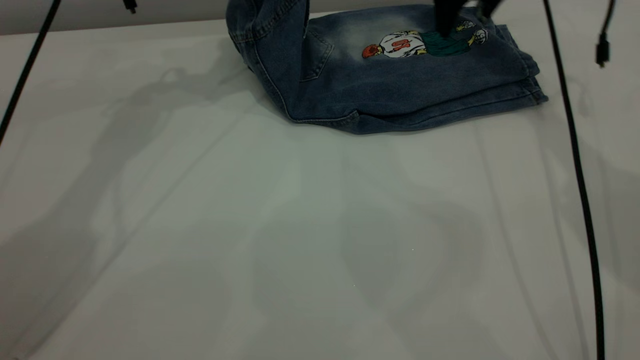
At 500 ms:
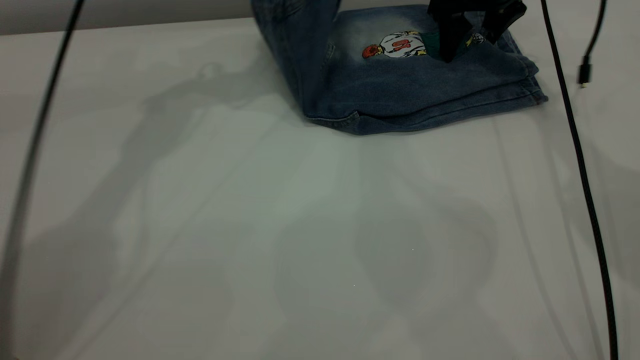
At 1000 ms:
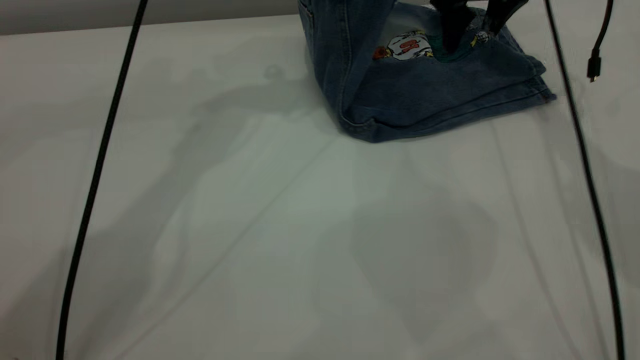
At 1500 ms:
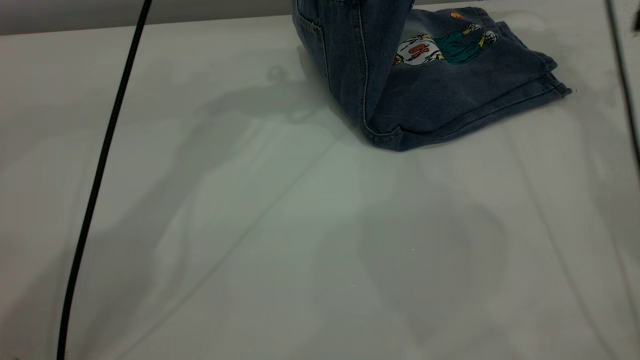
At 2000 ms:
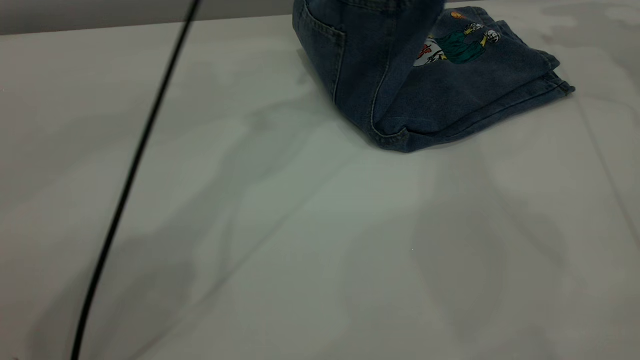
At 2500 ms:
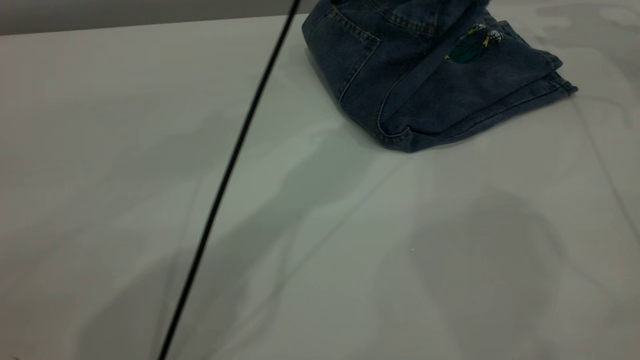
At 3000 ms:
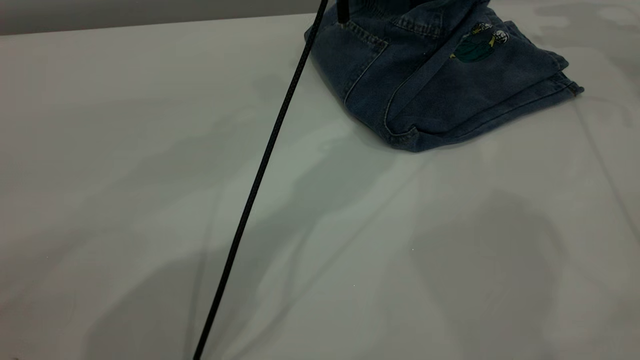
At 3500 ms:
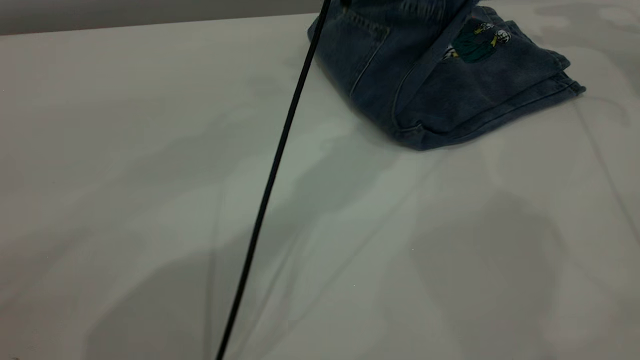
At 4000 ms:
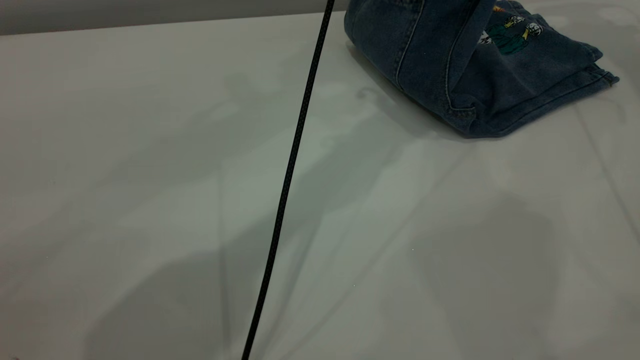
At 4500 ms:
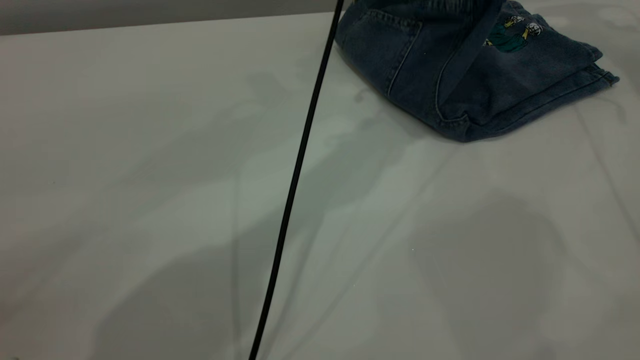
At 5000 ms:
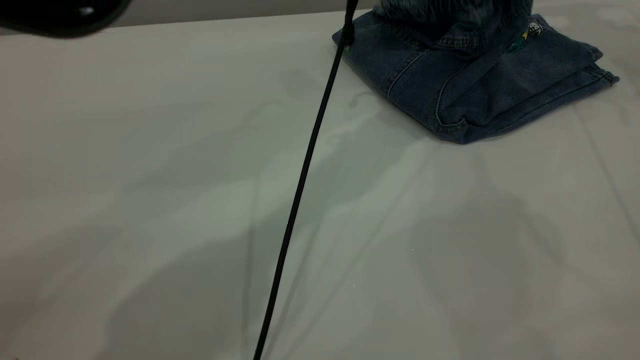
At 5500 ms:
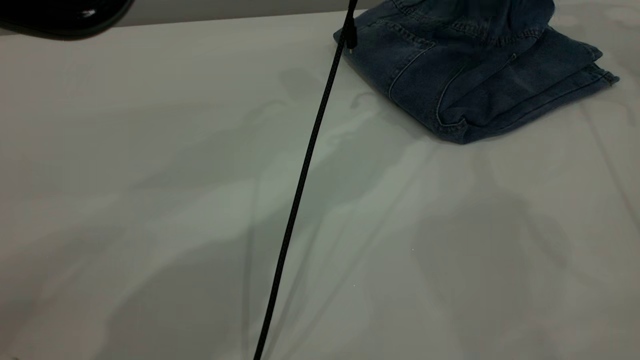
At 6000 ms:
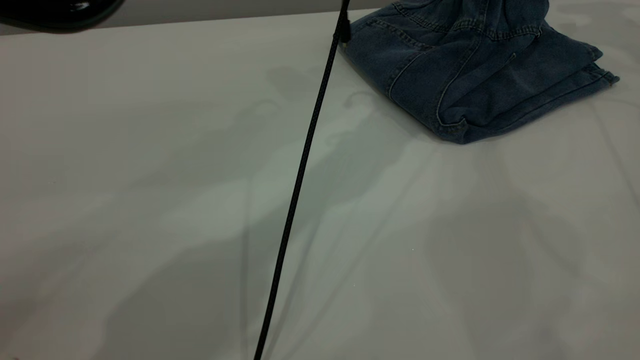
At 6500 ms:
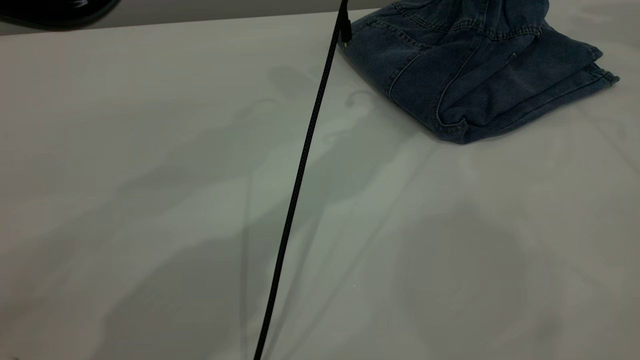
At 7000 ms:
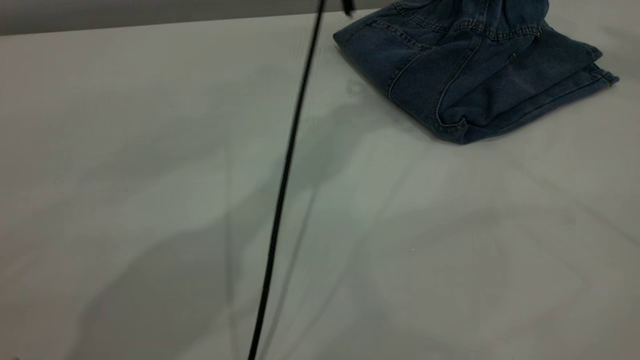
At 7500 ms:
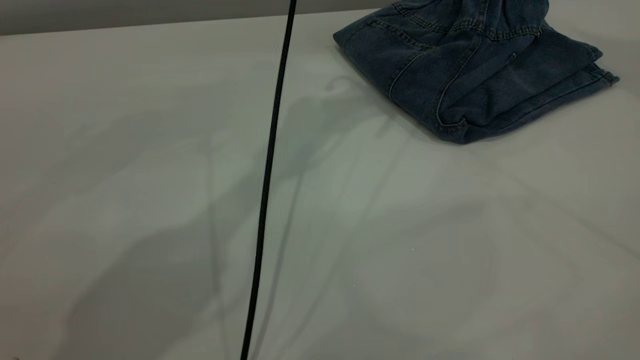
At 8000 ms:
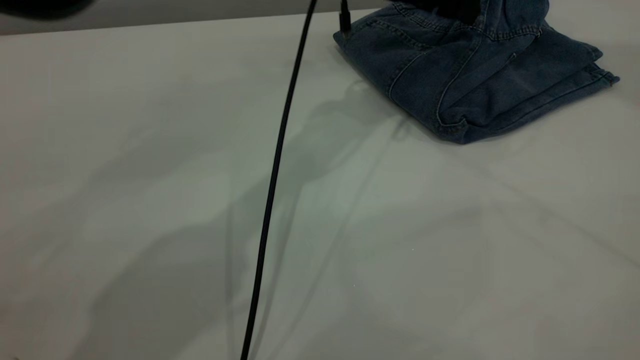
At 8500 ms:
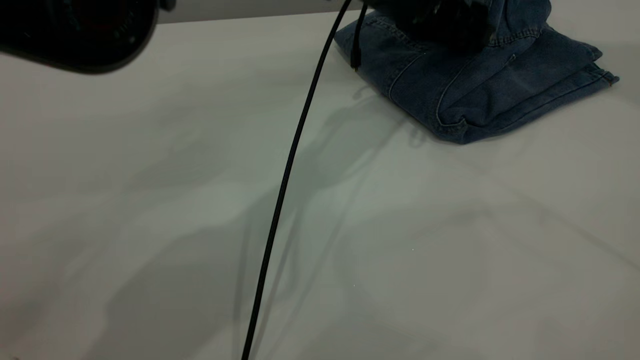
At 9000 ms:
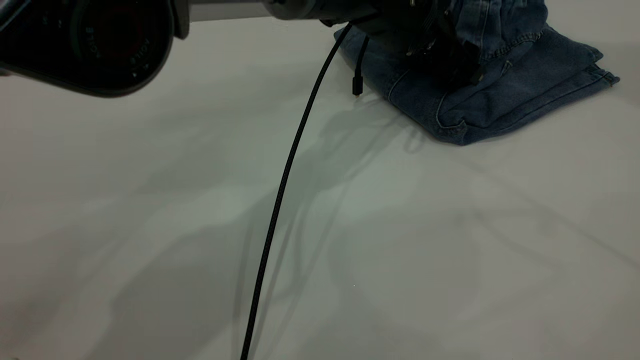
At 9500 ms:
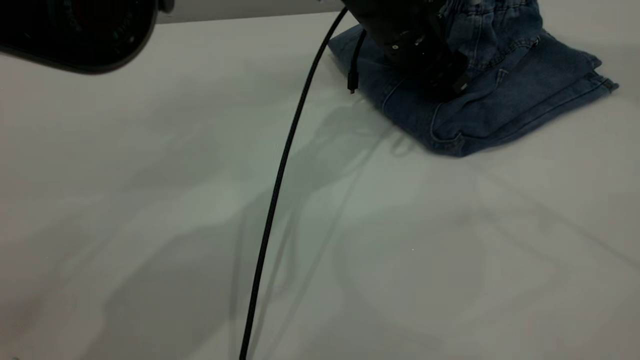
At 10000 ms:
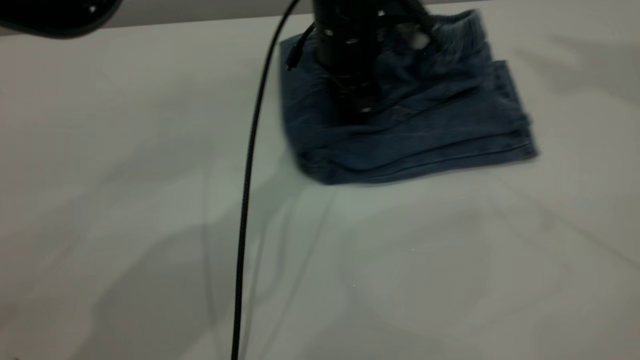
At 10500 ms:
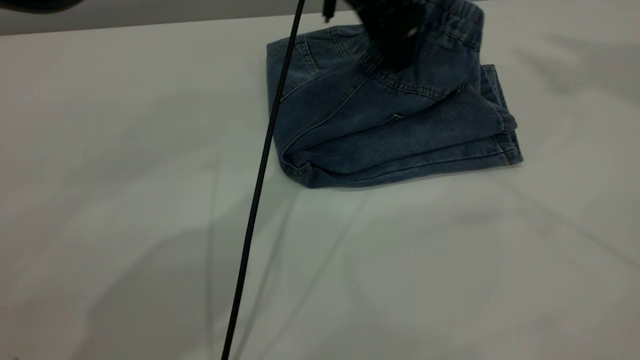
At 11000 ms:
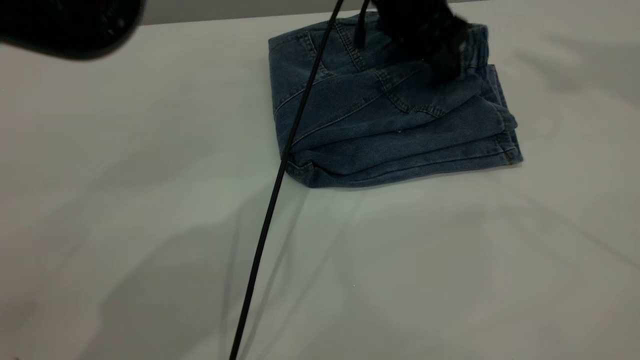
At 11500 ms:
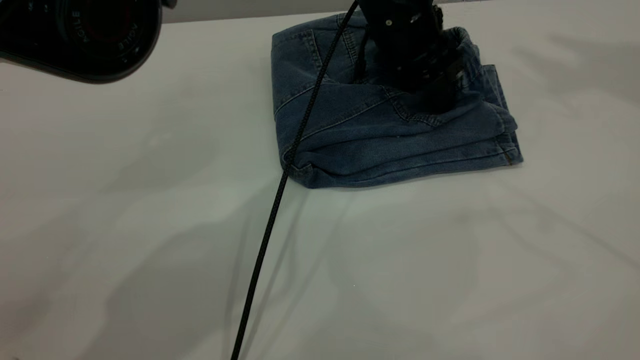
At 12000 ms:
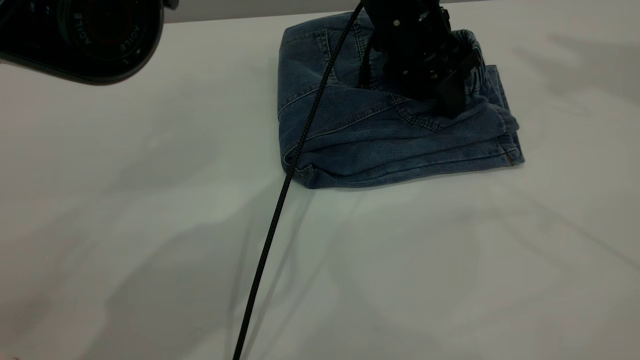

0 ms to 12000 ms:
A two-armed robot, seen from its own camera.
Step, 0 ms to 7000 ms: Fold the pants from left to right.
0 ms to 2000 ms: The left gripper shifts some 20 cm to the right, while the right gripper heads to the right and upward, covering some 20 cm.
2000 ms to 4000 ms: The left gripper moves to the right, roughly 10 cm, and opens its fingers.
4000 ms to 6000 ms: The left gripper shifts roughly 10 cm downward.
6000 ms to 8000 ms: The right gripper goes some 35 cm upward and backward.
8000 ms to 10000 ms: The left gripper heads to the left, covering roughly 5 cm.
10000 ms to 12000 ms: The left gripper goes approximately 5 cm to the right, and reaches approximately 10 cm upward, then returns.

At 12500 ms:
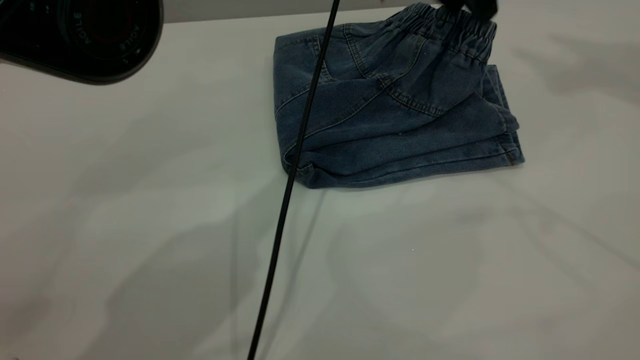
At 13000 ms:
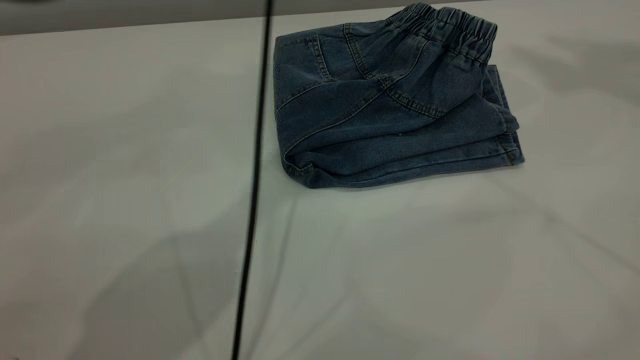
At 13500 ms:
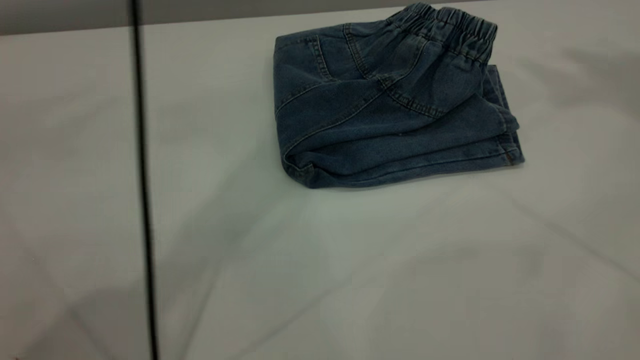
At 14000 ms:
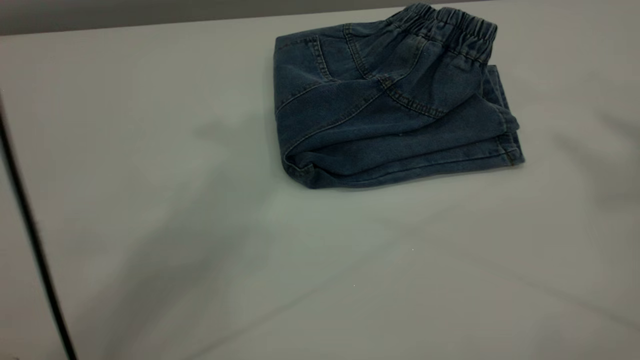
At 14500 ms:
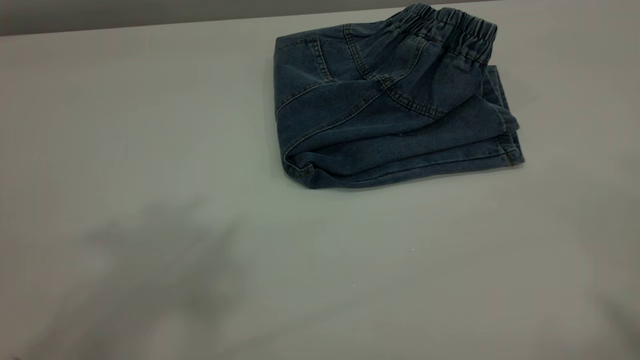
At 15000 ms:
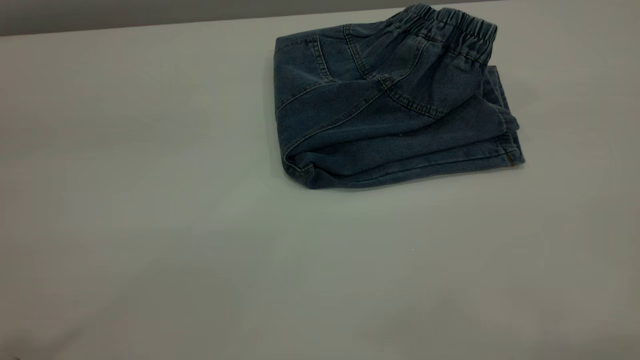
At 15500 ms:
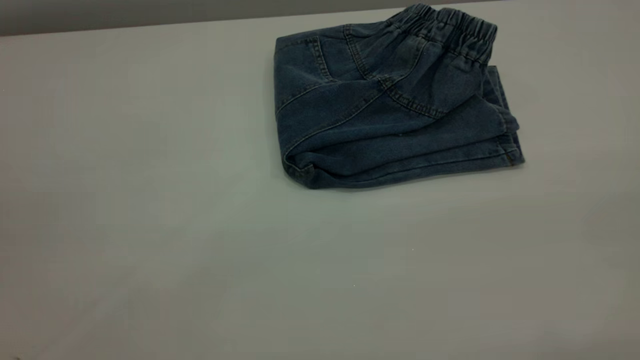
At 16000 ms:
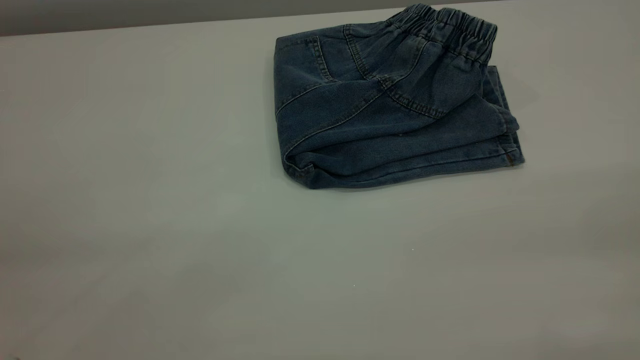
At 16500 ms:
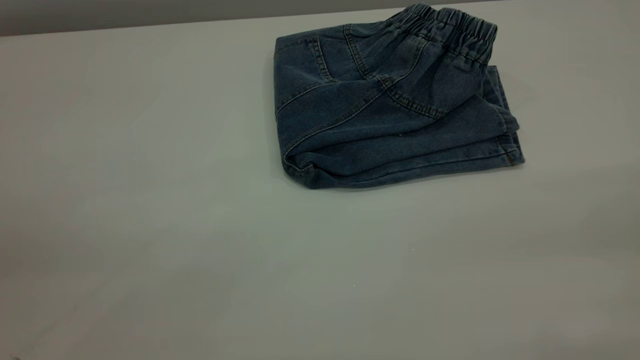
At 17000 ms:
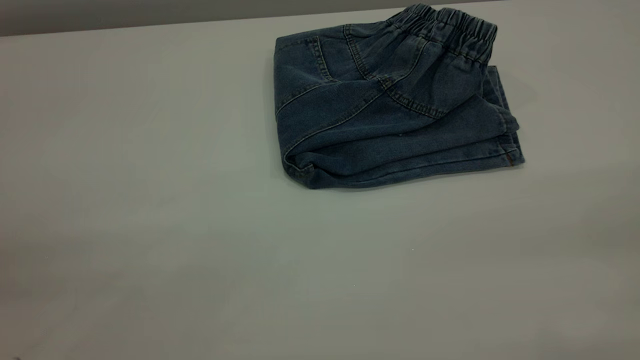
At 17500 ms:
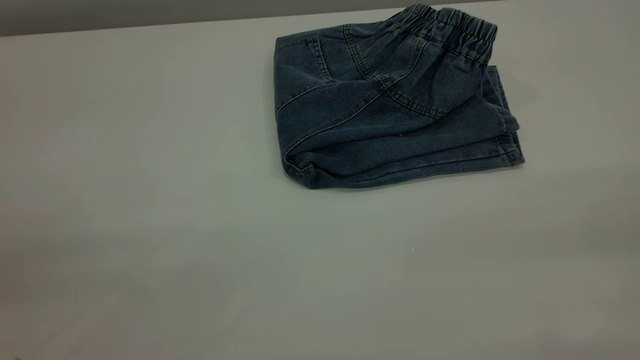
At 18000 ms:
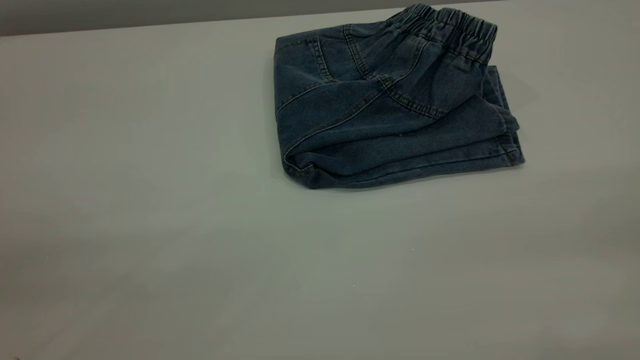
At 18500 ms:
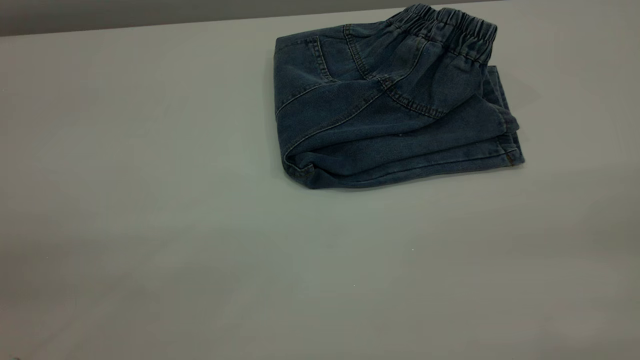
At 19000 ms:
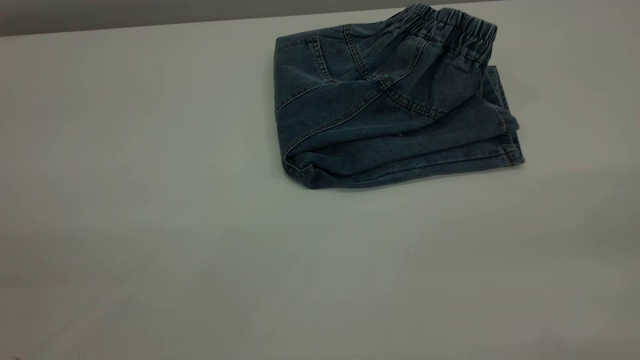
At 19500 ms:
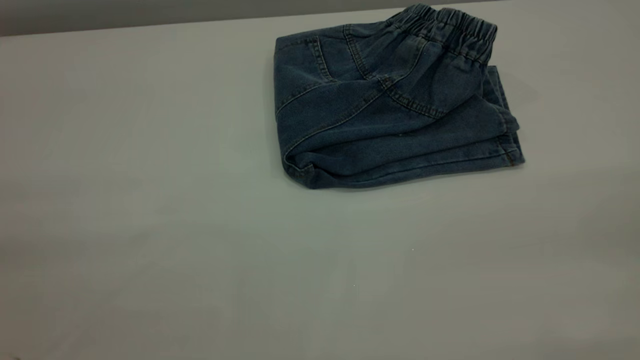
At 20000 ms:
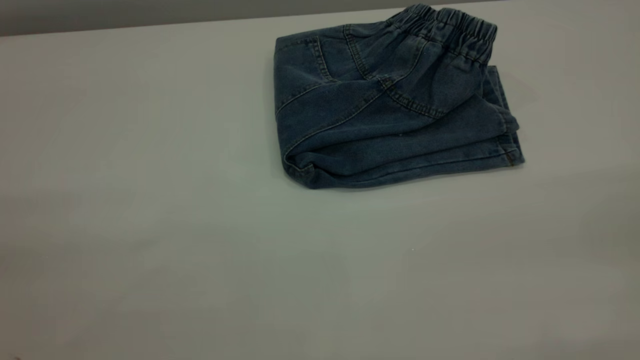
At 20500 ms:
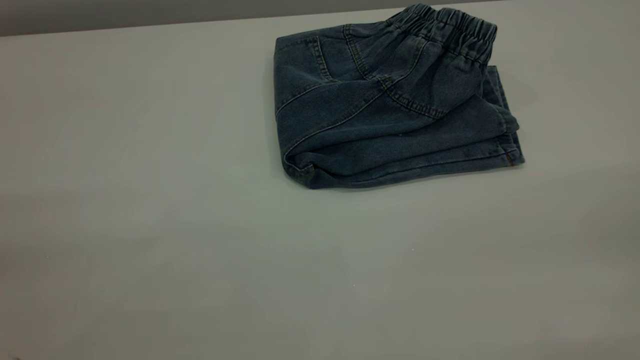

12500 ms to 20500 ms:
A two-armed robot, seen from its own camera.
12500 ms to 14500 ms: The right gripper goes roughly 30 cm backward; the left gripper moves upward, backward and to the left, roughly 50 cm.
